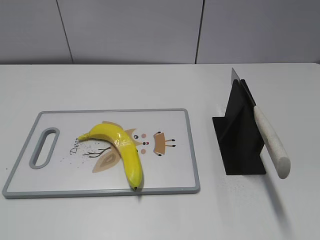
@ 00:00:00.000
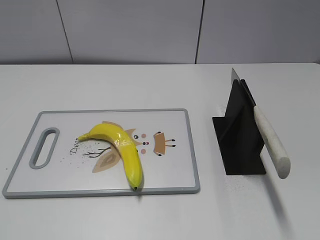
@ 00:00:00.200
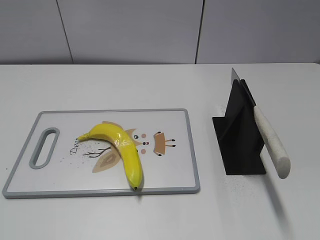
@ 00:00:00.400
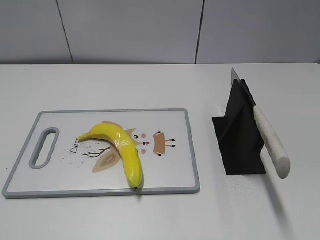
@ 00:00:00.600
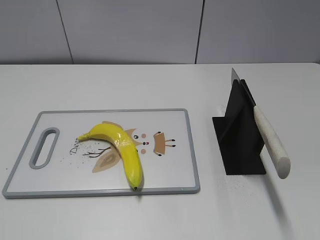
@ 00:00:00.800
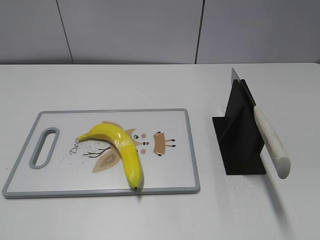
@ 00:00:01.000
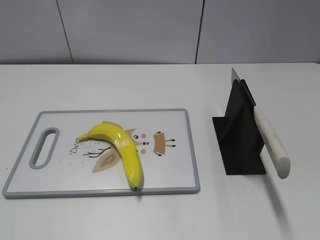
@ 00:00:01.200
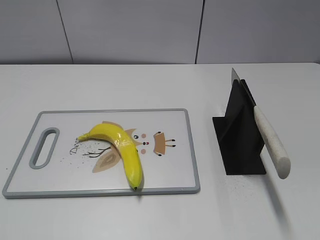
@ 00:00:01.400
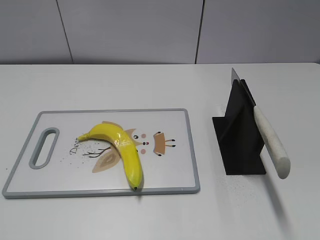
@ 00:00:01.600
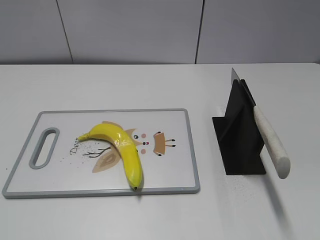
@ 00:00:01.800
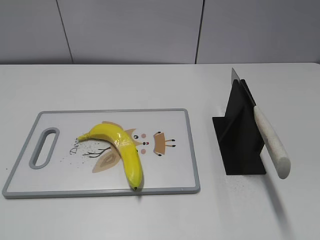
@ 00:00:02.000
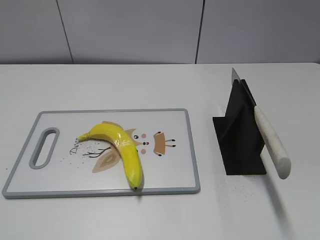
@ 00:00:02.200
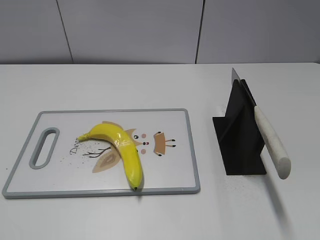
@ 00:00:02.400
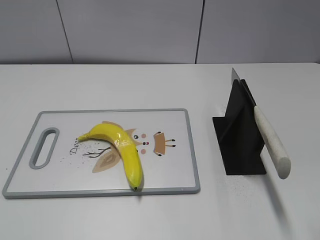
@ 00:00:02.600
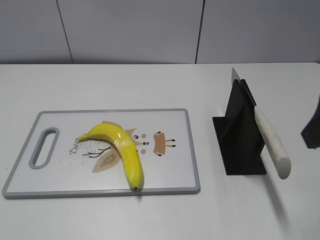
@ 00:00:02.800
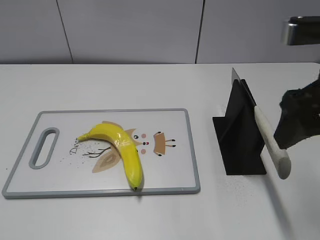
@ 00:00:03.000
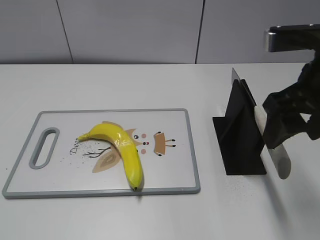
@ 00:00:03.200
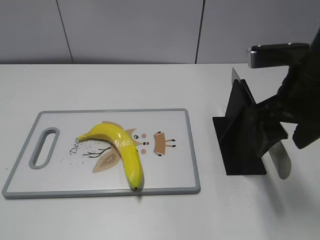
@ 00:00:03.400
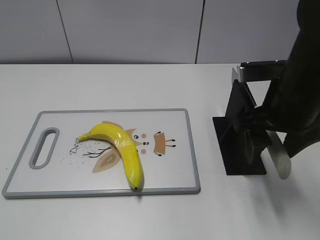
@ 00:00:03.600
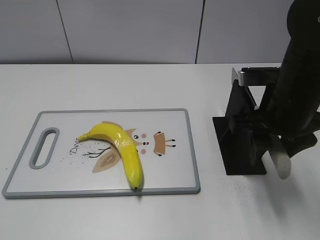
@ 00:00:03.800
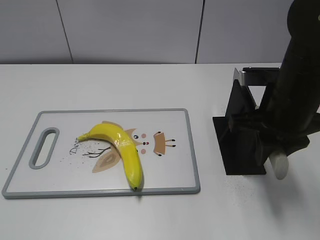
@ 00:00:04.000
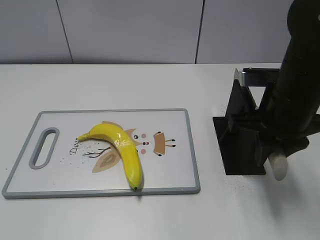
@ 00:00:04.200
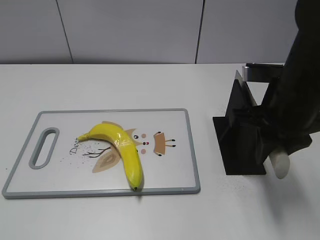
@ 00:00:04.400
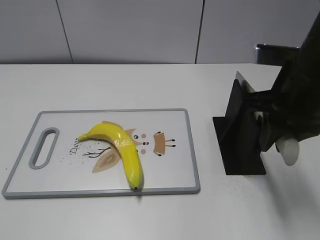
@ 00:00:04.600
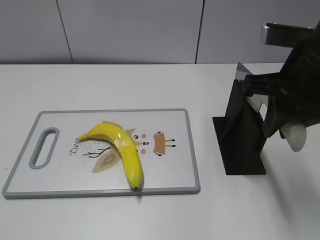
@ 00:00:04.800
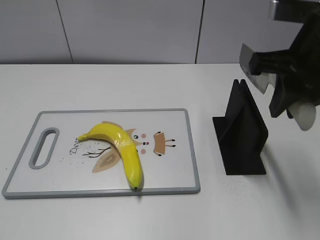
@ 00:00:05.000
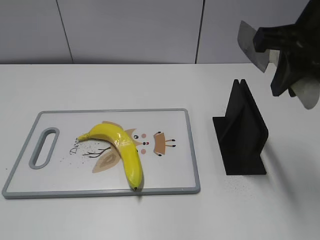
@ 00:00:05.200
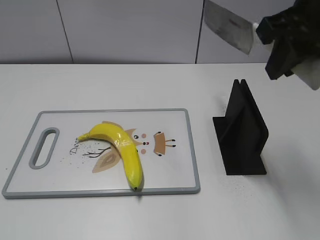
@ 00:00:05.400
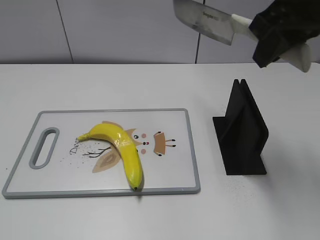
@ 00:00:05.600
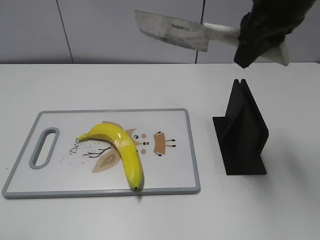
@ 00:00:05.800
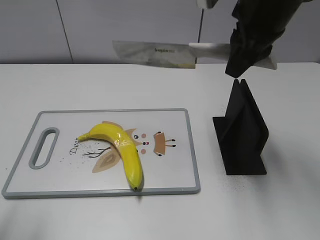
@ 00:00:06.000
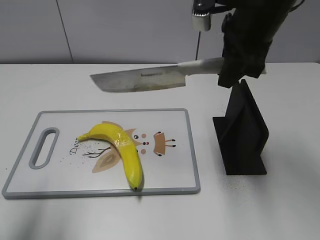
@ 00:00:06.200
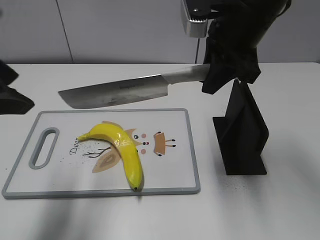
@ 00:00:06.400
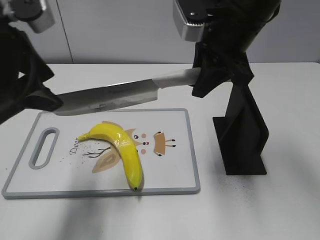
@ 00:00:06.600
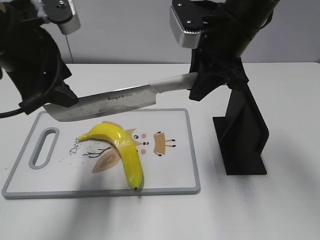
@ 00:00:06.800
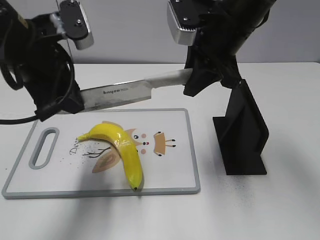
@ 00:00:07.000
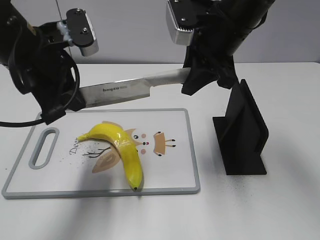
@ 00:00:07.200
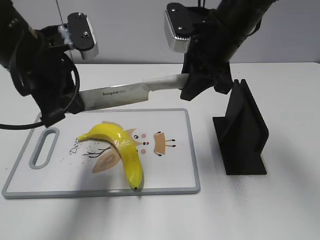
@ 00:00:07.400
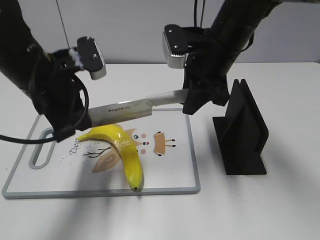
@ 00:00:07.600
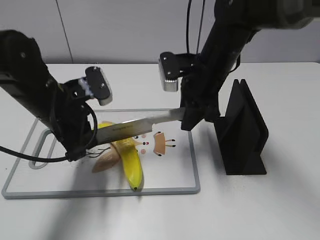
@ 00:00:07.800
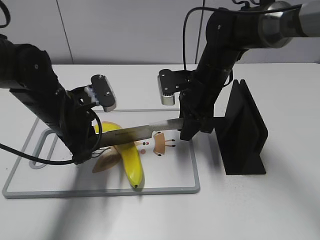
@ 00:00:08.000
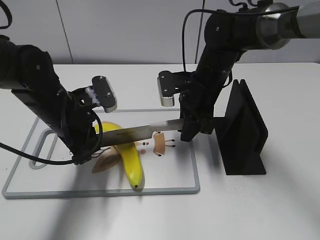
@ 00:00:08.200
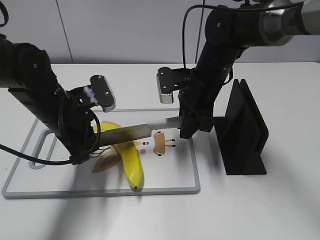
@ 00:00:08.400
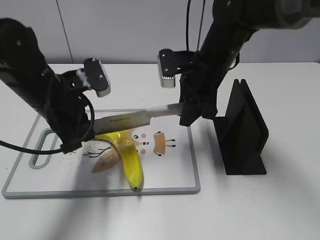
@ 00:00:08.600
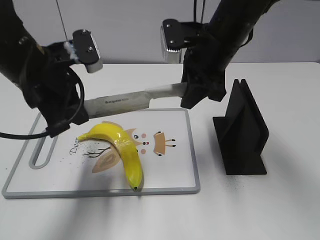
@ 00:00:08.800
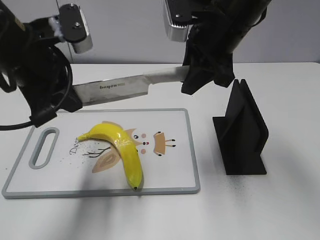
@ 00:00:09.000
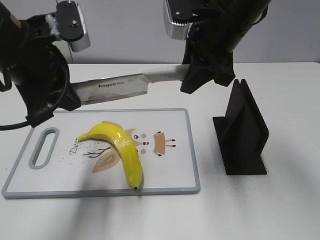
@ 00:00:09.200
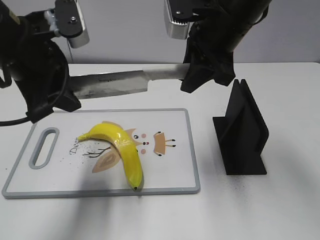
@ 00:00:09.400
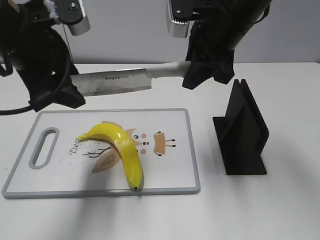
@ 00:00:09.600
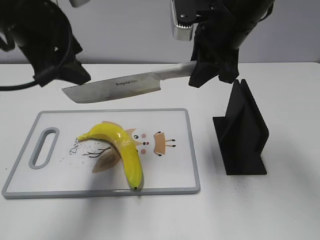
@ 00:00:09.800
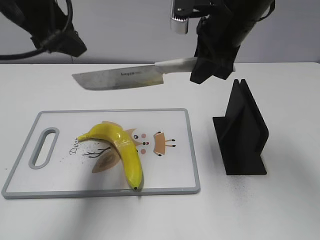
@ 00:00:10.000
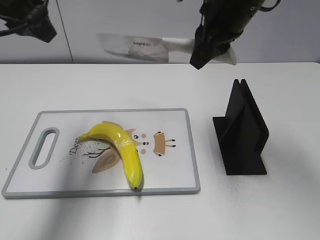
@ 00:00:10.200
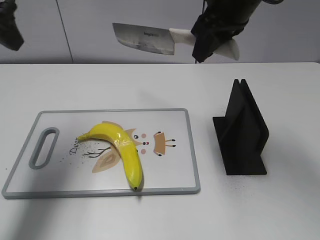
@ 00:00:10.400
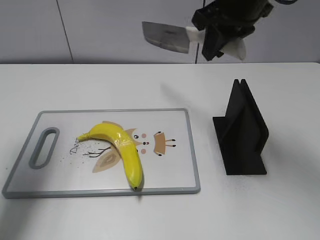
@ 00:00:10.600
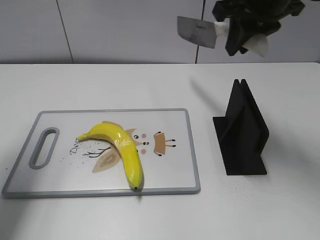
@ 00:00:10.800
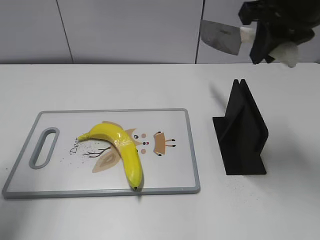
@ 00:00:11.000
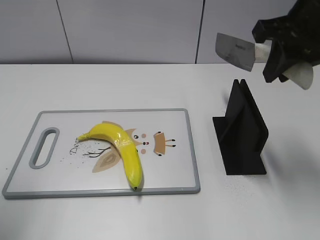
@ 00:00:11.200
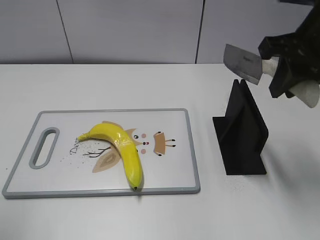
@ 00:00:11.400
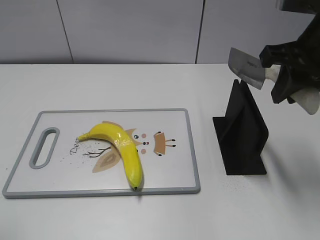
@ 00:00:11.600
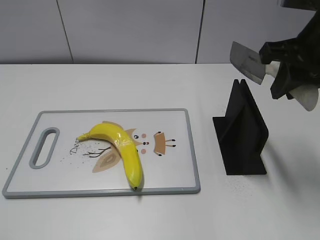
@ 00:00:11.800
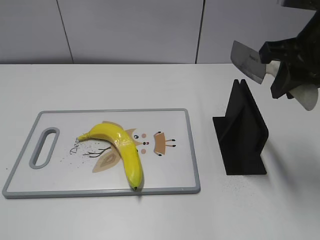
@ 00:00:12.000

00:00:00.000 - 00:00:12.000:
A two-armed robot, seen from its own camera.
Task of the whole recording: cut plastic banana.
Step, 00:00:00.000 - 00:00:04.800: Grab the knife handle with your right hand.
Step, 00:00:05.200 - 00:00:09.000: Lift the knife with your right hand.
Step, 00:00:09.200 - 00:00:09.800: Cut the banana with your right hand.
Step, 00:00:10.200 - 00:00:11.800: Lift the knife with your right hand.
00:00:01.600 - 00:00:03.000: The right gripper shifts approximately 25 cm forward and to the left.
00:00:03.000 - 00:00:04.400: The right gripper is displaced downward by approximately 5 cm, and closes up.
00:00:04.400 - 00:00:06.000: The left gripper moves forward, some 15 cm, while the right gripper travels upward and forward by about 10 cm.
00:00:06.000 - 00:00:07.600: The left gripper heads forward, to the right and downward, covering about 25 cm, and closes. The right gripper moves downward, some 10 cm.
00:00:07.600 - 00:00:09.000: The grippers both shift upward by about 5 cm.
00:00:09.000 - 00:00:10.400: The left gripper travels to the left and upward by approximately 10 cm, and opens its fingers.
00:00:10.400 - 00:00:12.000: The right gripper heads to the right and backward, covering roughly 15 cm. Meanwhile the left gripper travels backward by some 30 cm.

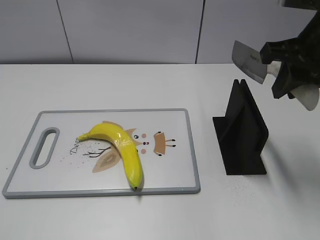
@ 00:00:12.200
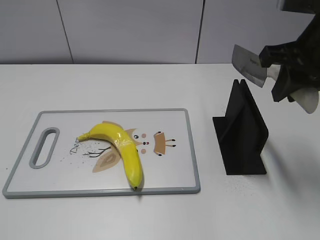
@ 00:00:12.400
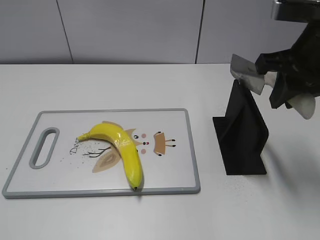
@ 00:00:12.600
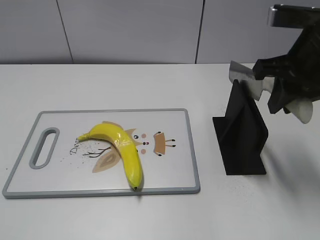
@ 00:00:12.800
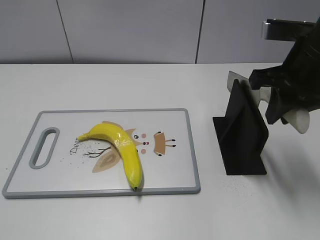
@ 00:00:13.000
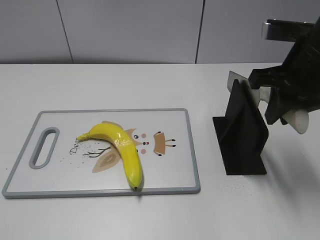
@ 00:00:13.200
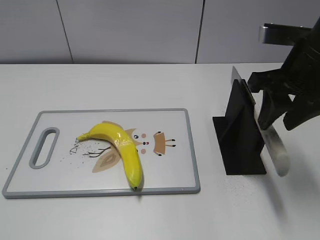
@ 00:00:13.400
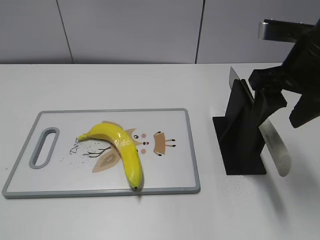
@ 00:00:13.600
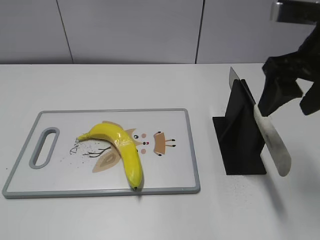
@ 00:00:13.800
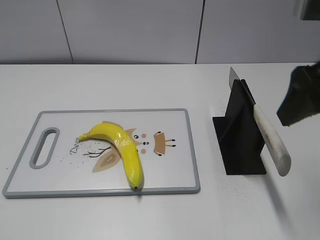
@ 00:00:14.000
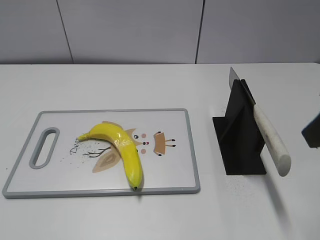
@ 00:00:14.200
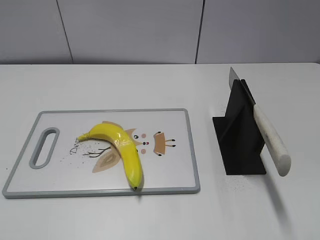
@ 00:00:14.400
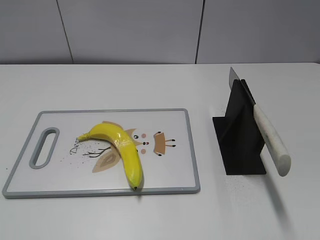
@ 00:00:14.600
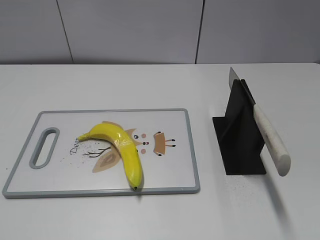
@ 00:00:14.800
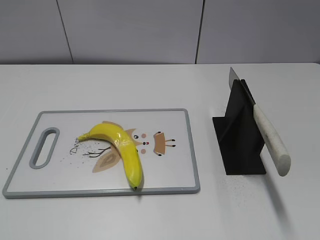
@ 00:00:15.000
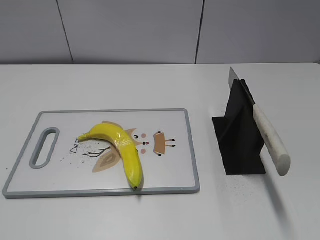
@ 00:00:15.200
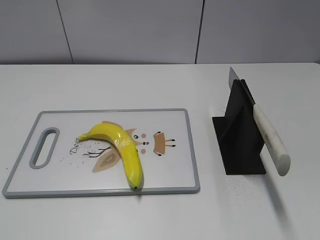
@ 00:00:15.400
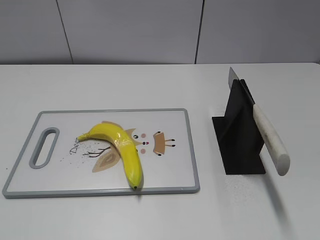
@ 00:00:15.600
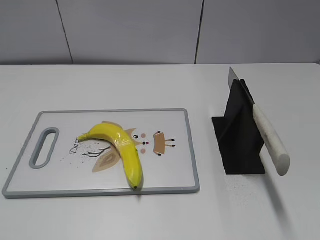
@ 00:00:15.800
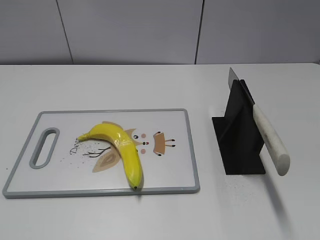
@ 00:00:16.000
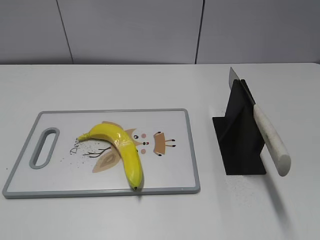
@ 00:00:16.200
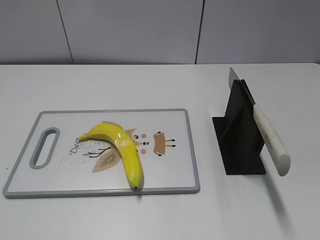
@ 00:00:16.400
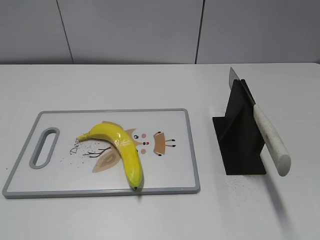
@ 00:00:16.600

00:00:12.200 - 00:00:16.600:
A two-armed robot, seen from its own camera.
Task of the whole recording: cut plastic banana.
Step, 00:00:12.200 - 00:00:16.600: Place the knife on the storage rack with your right hand.
00:00:12.200 - 00:00:13.600: The right gripper opens up.
00:00:13.600 - 00:00:15.200: The right gripper travels backward by roughly 25 cm.
